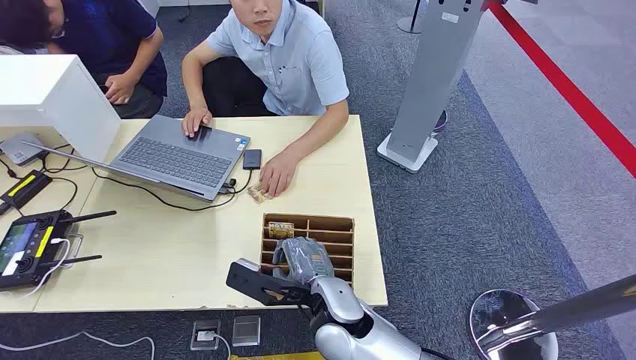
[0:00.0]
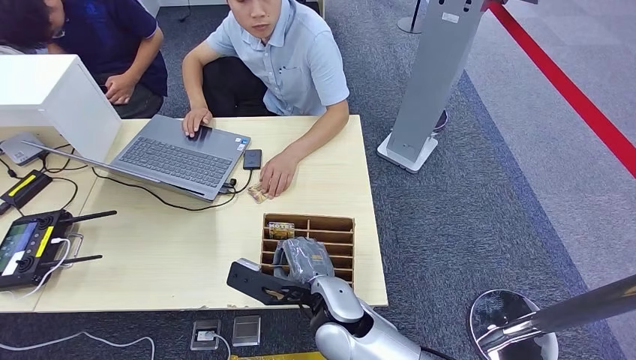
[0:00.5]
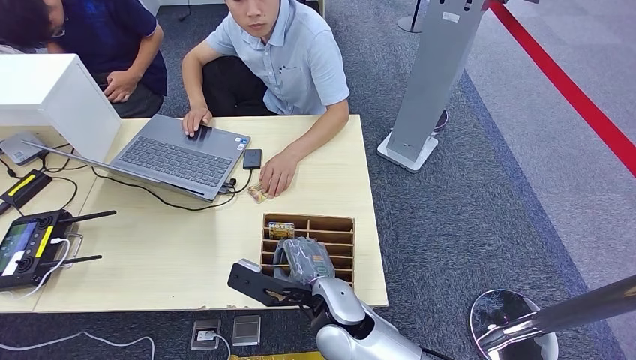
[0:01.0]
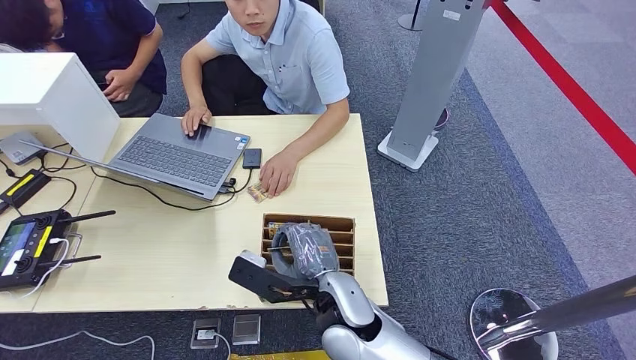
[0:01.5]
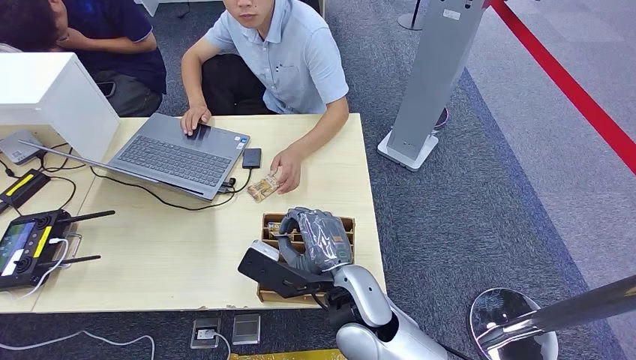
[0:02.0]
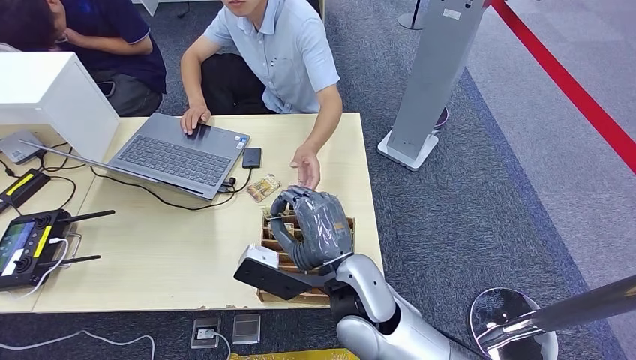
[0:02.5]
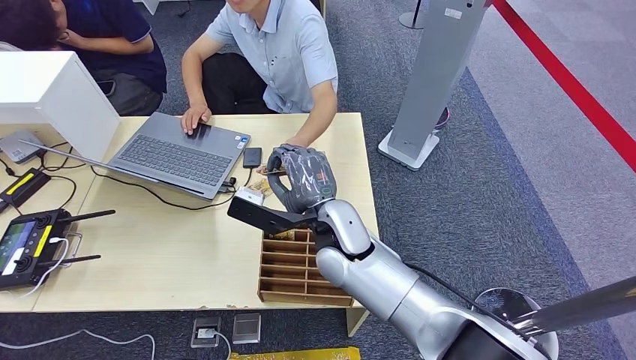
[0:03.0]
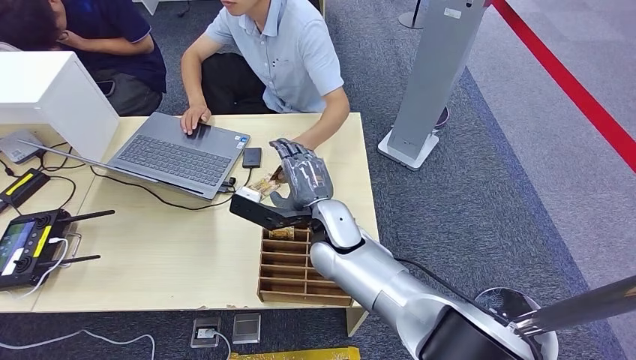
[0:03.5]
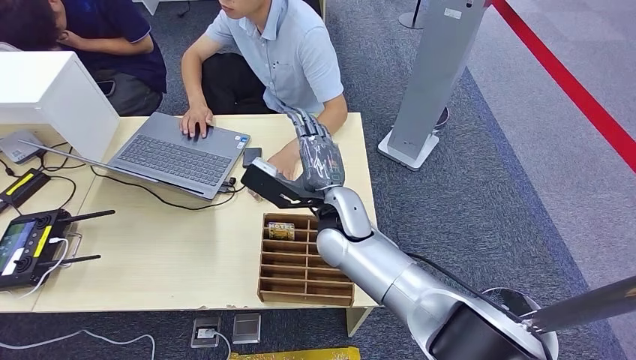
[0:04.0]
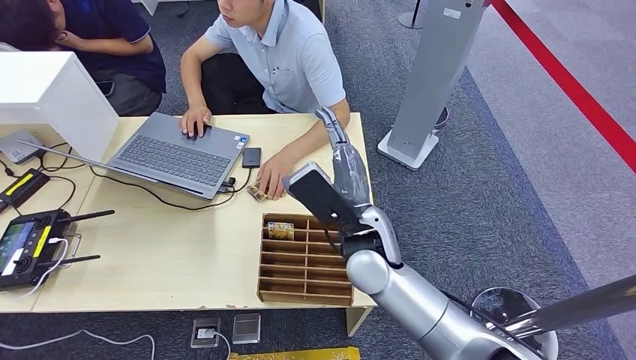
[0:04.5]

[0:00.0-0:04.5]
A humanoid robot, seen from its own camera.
Step, 0:00.0 to 0:01.5: Pick up the key card from the card box.
Step, 0:02.0 to 0:04.5: Hand the key card to the target.
0:02.0 to 0:04.5: The right hand moves forward, roughly 10 cm.
